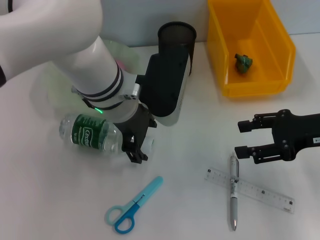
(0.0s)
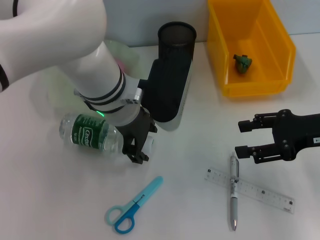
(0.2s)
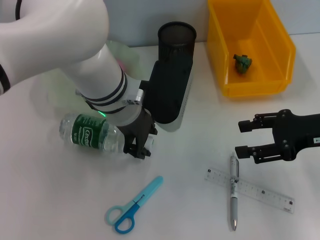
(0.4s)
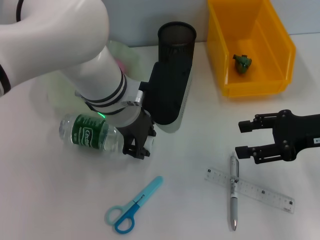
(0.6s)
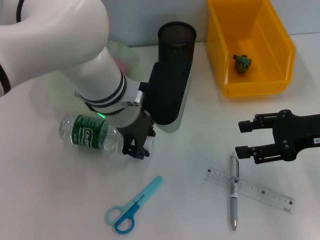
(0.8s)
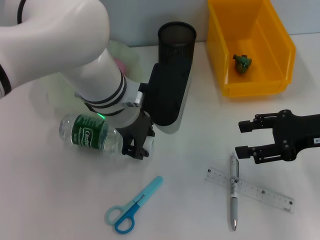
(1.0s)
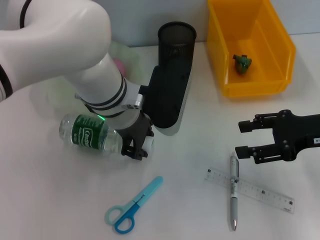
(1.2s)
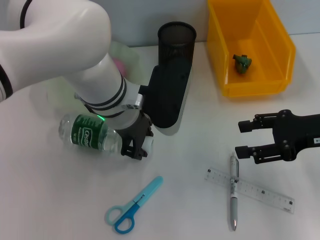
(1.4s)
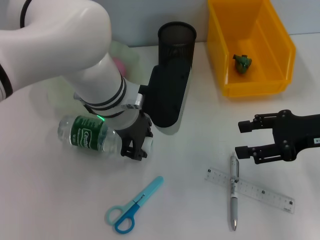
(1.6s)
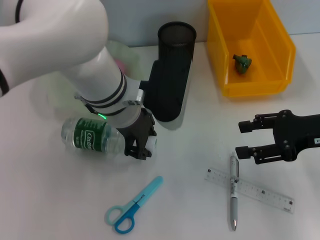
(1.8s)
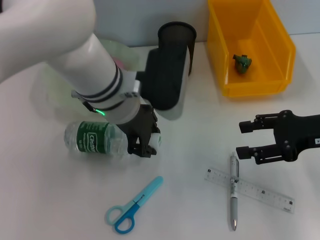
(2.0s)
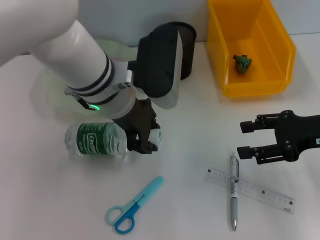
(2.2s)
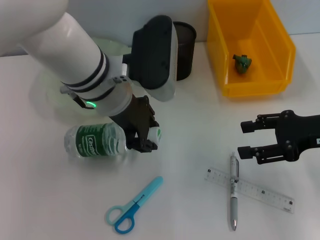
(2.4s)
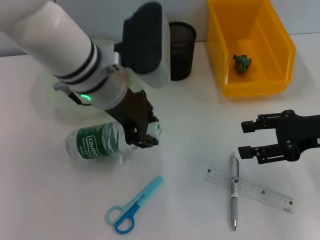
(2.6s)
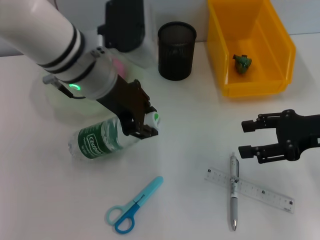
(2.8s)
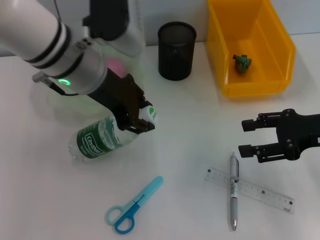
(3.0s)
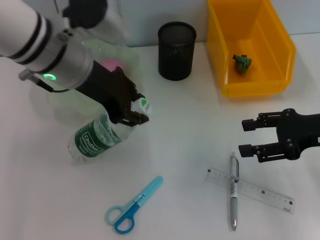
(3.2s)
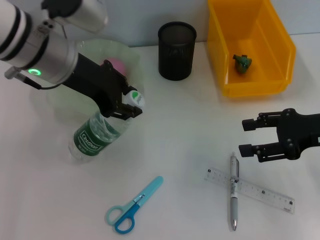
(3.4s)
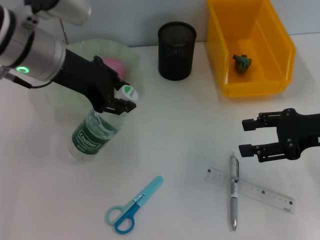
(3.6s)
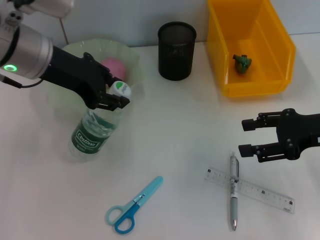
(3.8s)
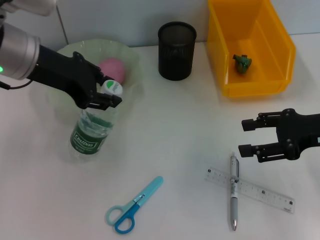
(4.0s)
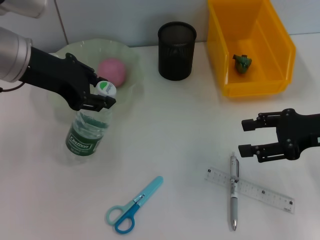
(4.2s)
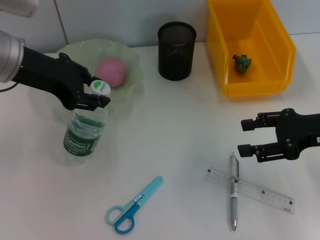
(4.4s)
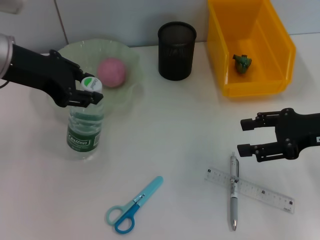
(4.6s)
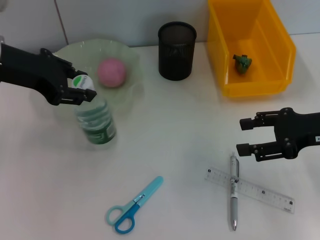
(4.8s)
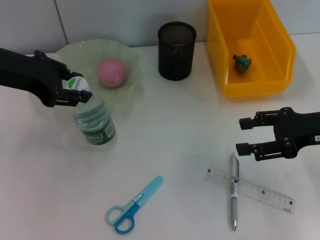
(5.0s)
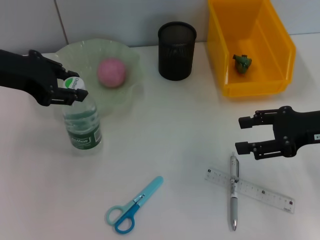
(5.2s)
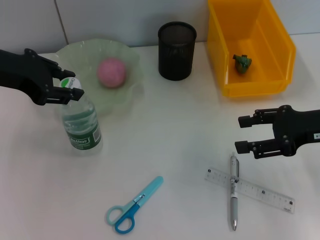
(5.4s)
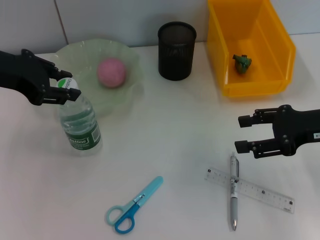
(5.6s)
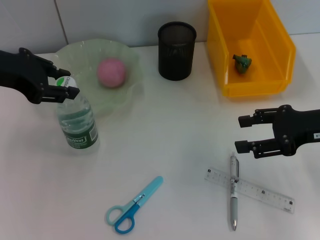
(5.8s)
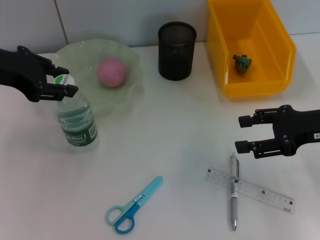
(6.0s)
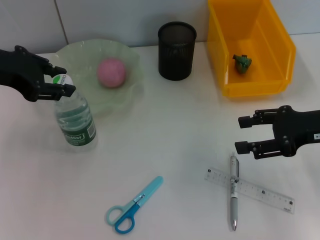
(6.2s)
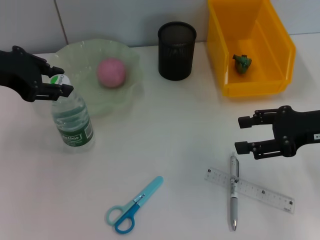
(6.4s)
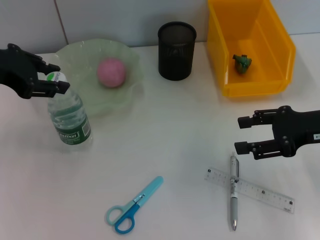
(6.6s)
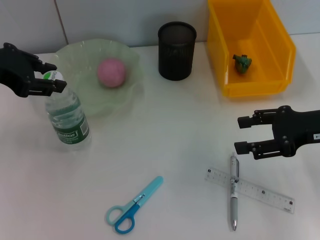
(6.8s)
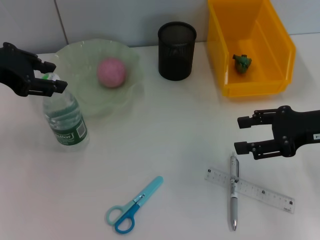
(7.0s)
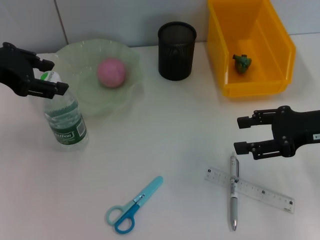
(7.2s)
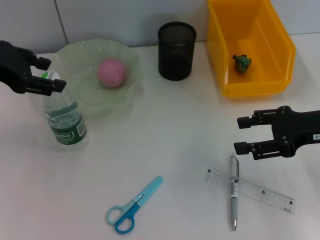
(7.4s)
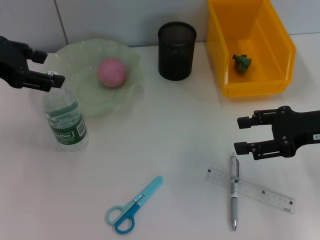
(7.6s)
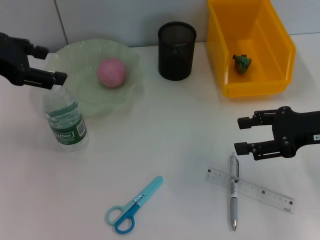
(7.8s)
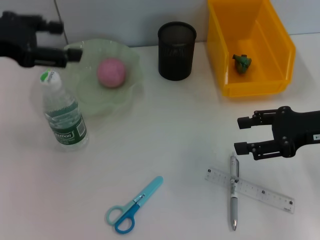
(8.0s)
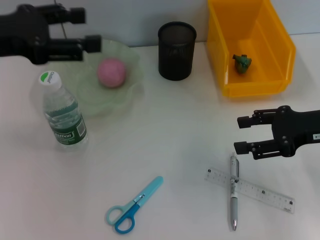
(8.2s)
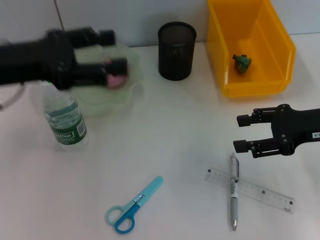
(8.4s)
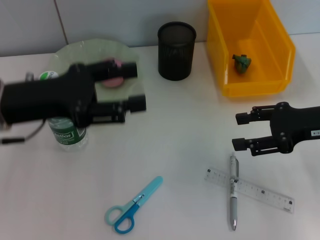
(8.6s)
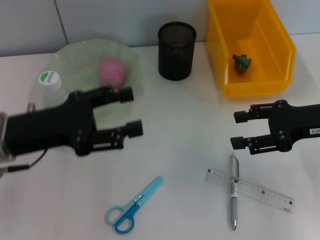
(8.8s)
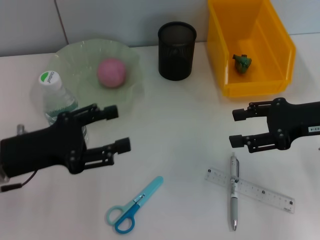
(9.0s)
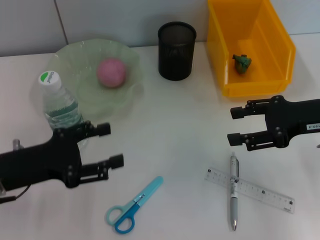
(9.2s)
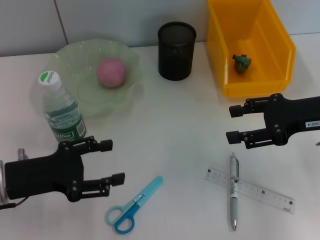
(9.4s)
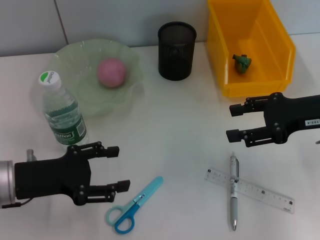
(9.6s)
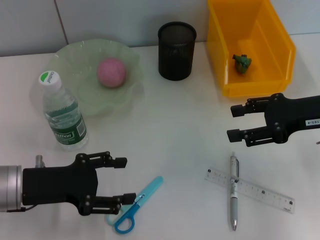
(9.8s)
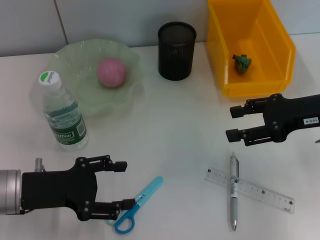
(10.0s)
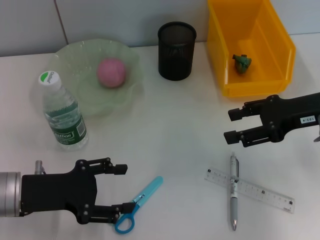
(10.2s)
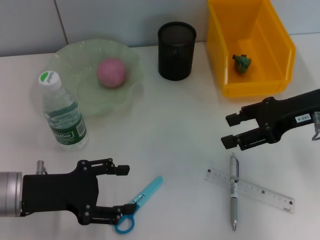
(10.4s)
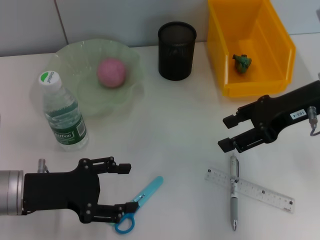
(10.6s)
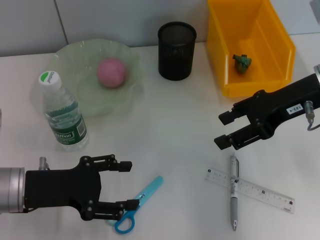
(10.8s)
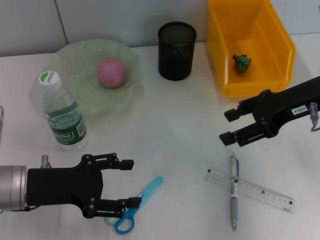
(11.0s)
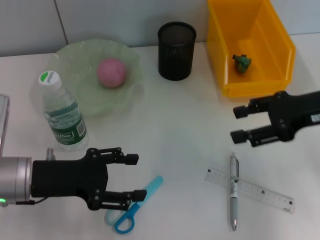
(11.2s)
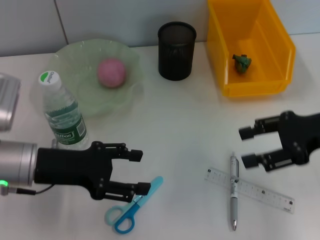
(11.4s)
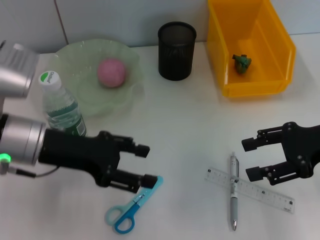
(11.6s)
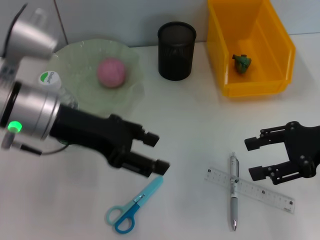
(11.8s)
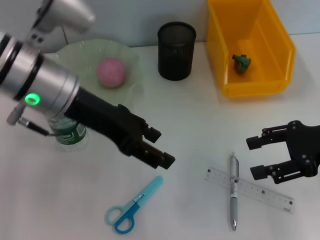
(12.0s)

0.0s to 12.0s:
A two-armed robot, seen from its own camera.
Step, 1.4s to 8.0s: Place the water bottle on the table with the left hand.
0.0s to 1.6s: The left gripper closes.
1.6s to 3.0s: The left gripper heads upward, covering roughly 5 cm.
3.0s to 4.4s: The left gripper is displaced to the left by roughly 10 cm.
4.4s to 6.0s: The left gripper heads to the left, covering about 5 cm.
6.0s to 7.6s: The left gripper opens up.
7.6s to 9.0s: The left gripper goes some 15 cm downward and backward.
10.4s to 12.0s: The right gripper moves about 5 cm. The left gripper is displaced upward, to the right and forward by roughly 20 cm.

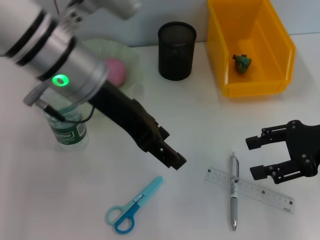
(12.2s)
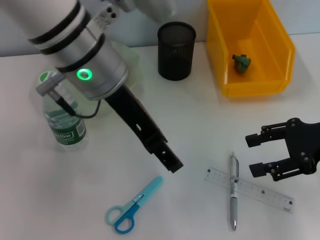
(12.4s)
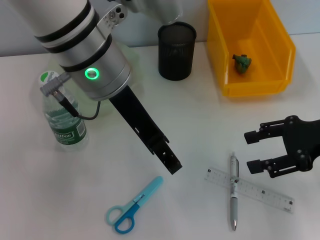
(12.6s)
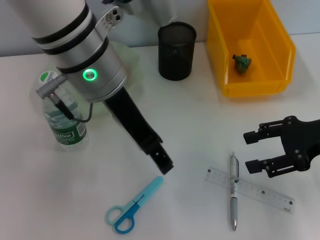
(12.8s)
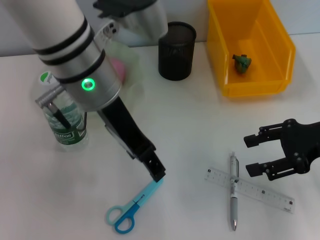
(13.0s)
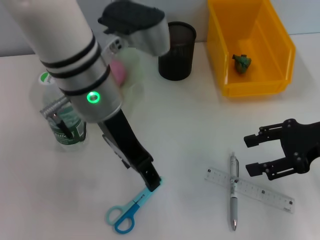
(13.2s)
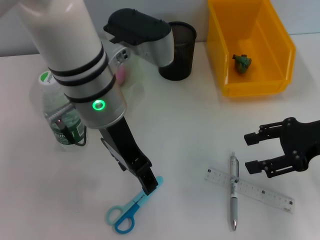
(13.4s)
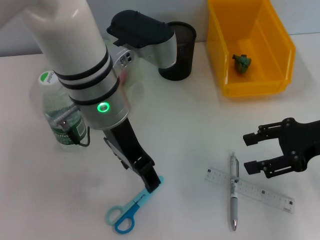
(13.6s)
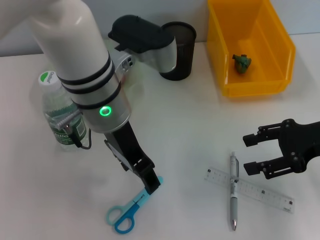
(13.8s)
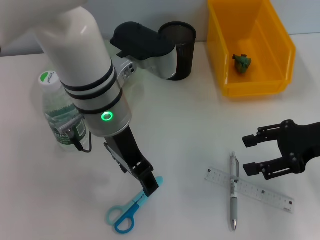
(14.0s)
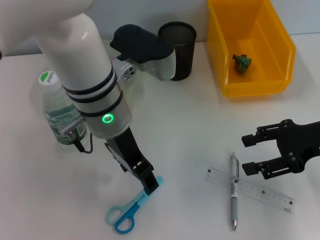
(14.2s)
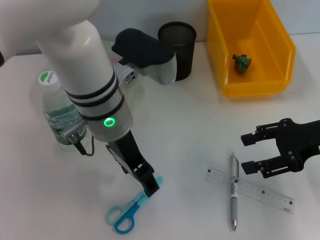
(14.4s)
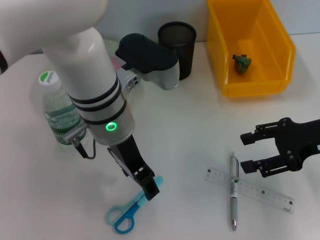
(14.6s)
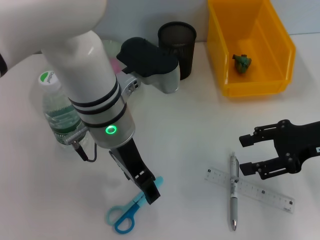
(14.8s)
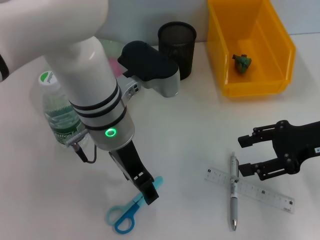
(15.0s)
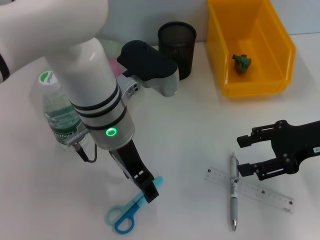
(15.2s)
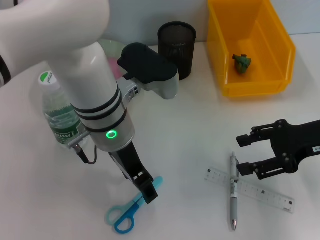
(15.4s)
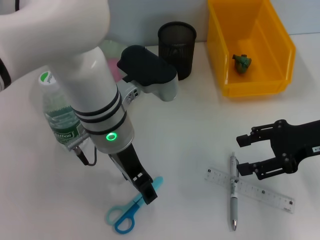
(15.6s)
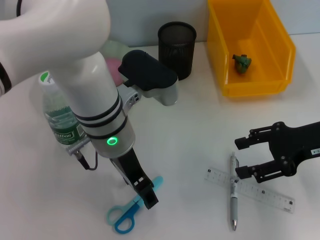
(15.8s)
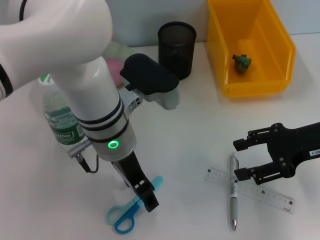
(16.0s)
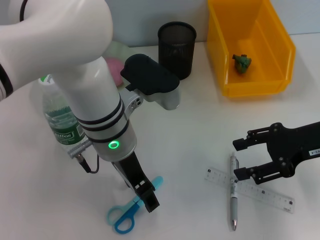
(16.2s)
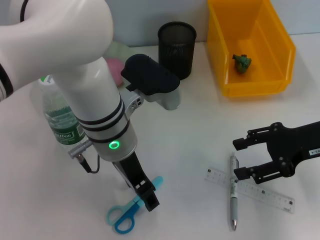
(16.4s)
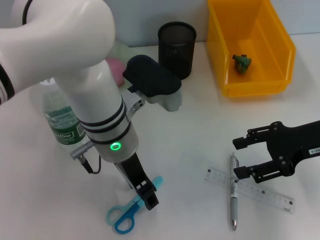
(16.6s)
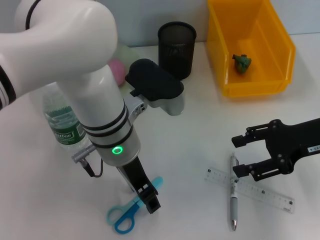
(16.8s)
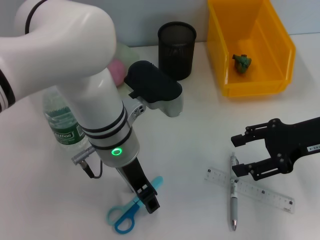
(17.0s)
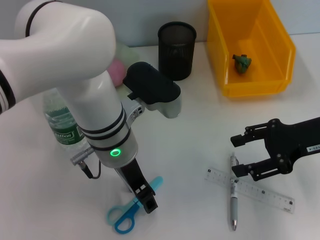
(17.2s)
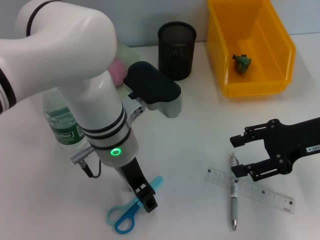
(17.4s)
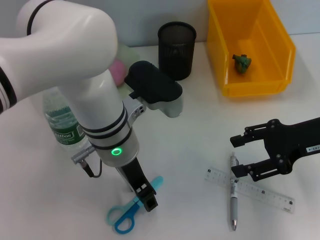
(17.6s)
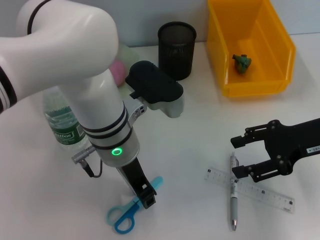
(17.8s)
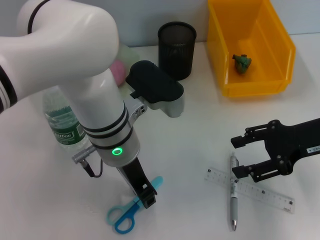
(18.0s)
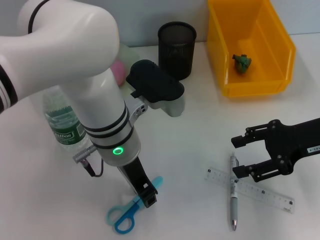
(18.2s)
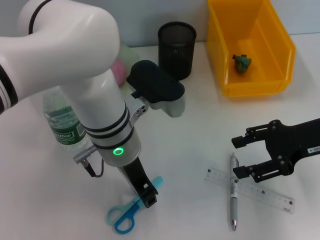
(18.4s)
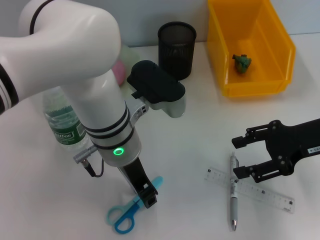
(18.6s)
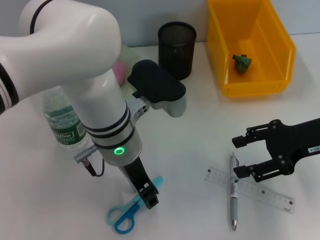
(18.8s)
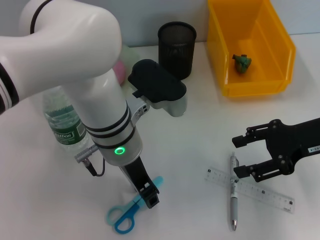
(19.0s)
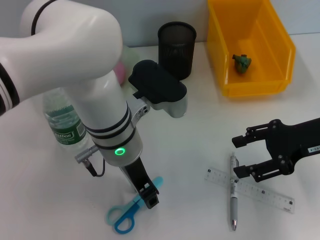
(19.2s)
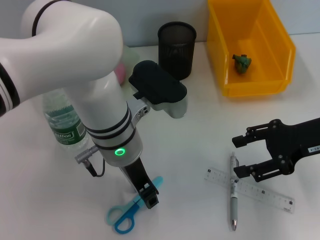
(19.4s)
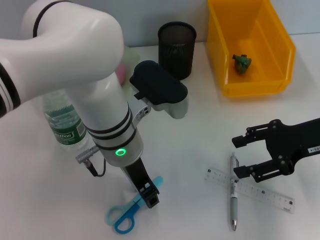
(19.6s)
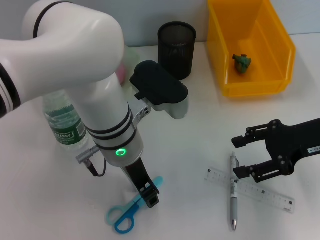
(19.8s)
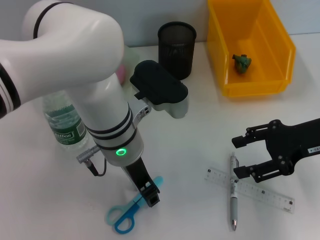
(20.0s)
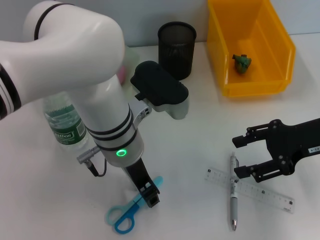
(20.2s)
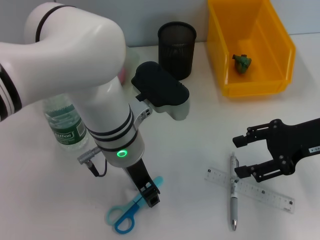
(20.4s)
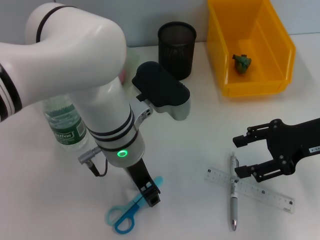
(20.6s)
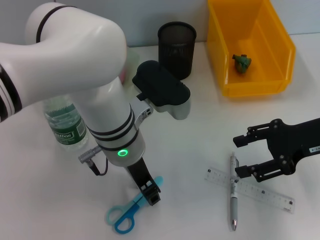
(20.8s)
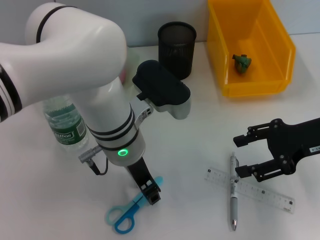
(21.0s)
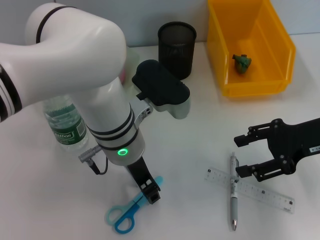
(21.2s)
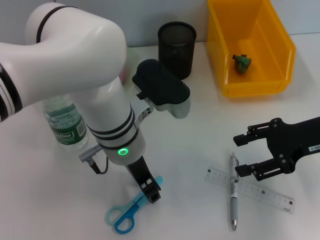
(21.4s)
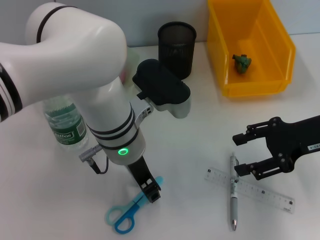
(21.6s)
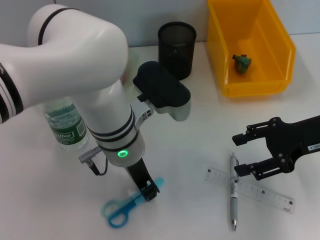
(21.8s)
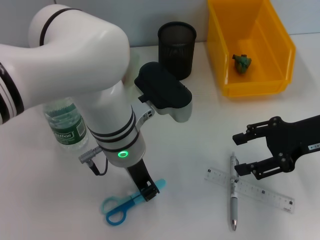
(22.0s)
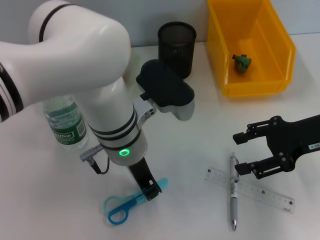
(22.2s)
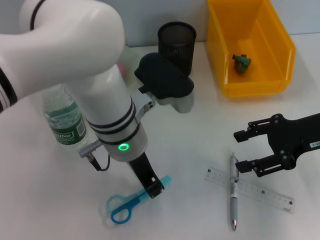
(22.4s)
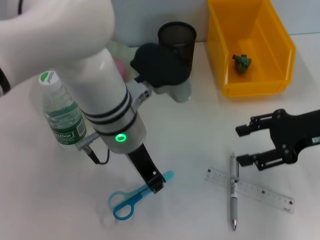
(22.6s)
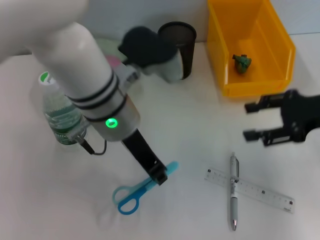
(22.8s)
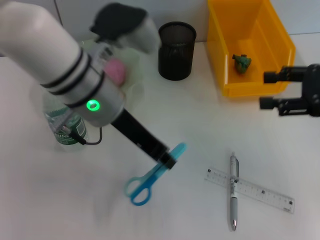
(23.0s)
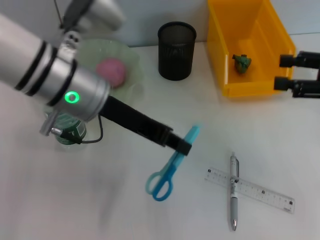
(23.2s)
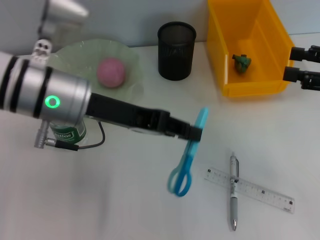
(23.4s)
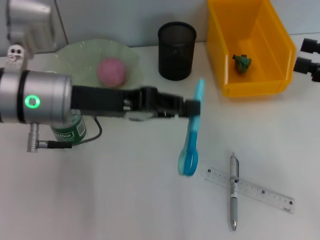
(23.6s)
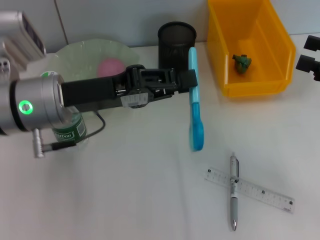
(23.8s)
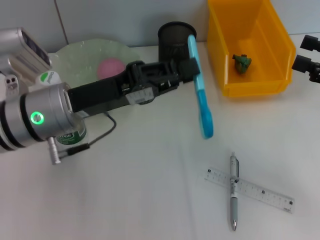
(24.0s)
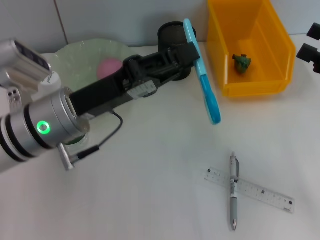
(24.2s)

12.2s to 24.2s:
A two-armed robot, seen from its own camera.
Step, 12.2s to 21.8s: Grab the blue scissors with the left hand.
12.2s to 13.8s: The left gripper changes place by roughly 5 cm.
13.8s to 16.6s: The grippers move only a little.
16.6s to 18.2s: The left gripper closes up.
18.2s to 21.2s: The two grippers keep their place.
22.6s to 24.2s: The right gripper travels to the right by roughly 5 cm; the left gripper shifts approximately 10 cm to the left.
